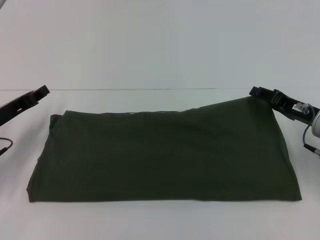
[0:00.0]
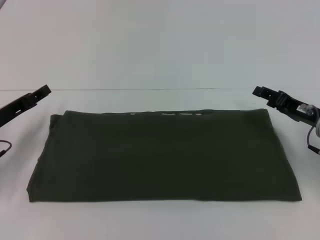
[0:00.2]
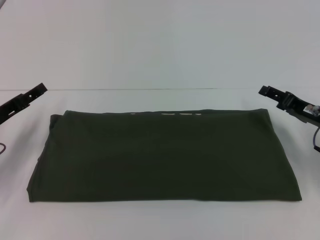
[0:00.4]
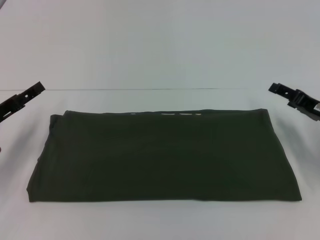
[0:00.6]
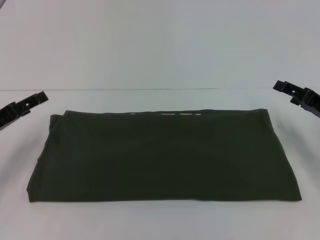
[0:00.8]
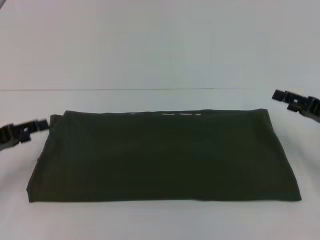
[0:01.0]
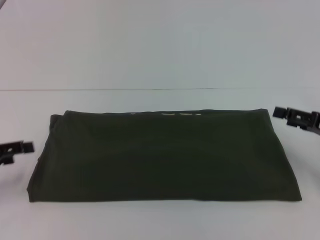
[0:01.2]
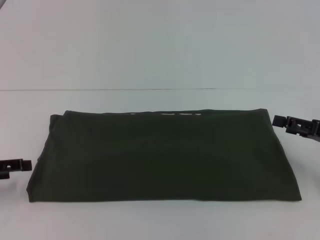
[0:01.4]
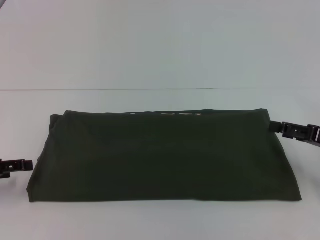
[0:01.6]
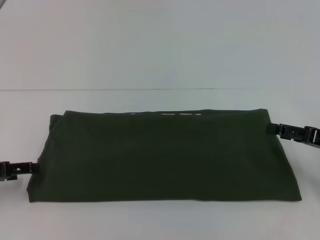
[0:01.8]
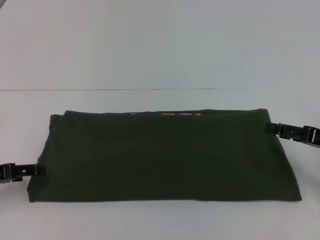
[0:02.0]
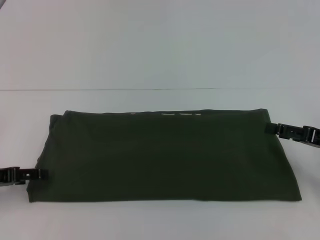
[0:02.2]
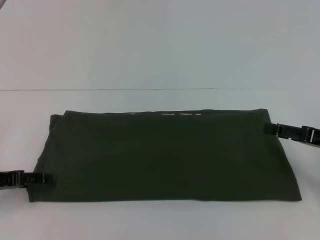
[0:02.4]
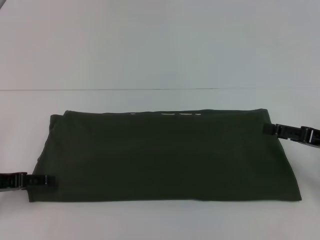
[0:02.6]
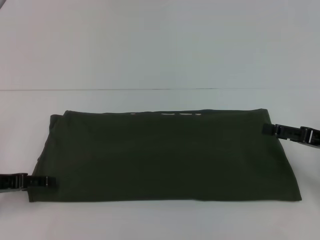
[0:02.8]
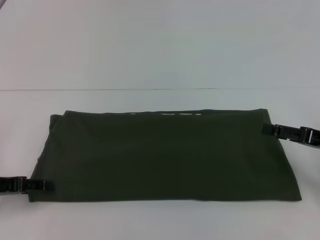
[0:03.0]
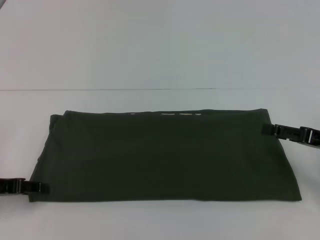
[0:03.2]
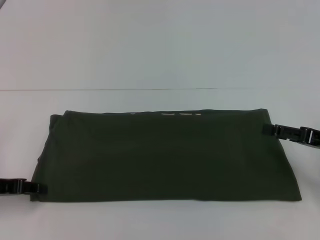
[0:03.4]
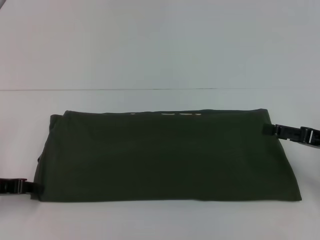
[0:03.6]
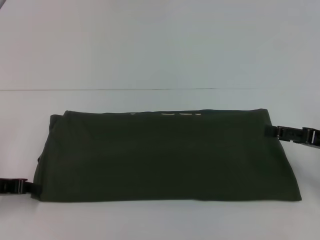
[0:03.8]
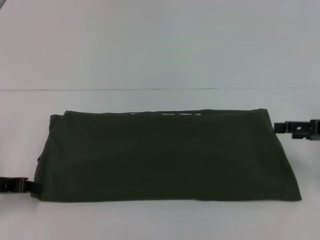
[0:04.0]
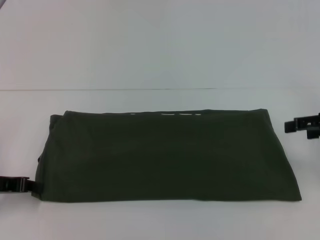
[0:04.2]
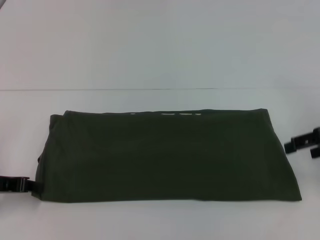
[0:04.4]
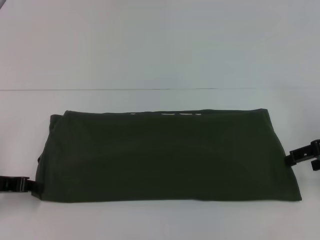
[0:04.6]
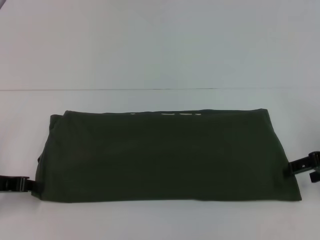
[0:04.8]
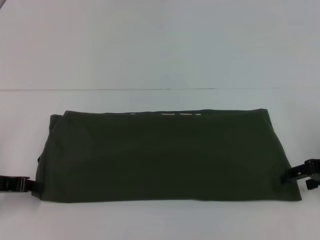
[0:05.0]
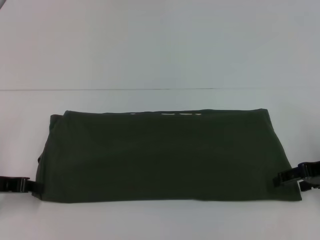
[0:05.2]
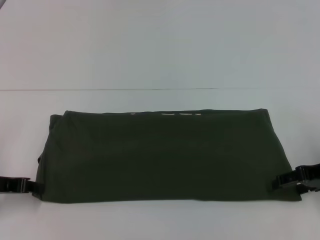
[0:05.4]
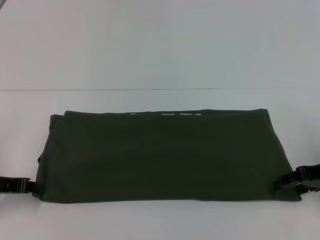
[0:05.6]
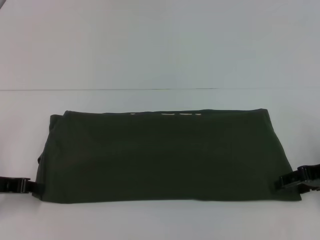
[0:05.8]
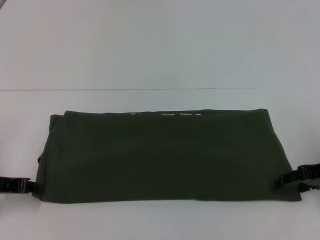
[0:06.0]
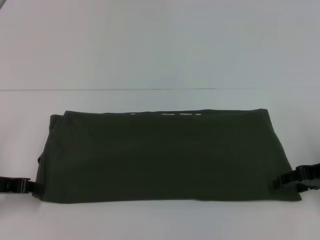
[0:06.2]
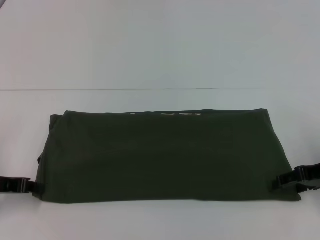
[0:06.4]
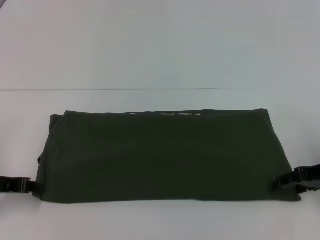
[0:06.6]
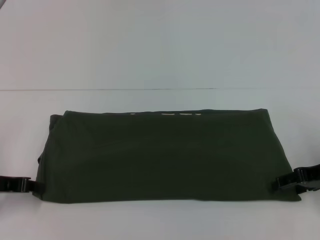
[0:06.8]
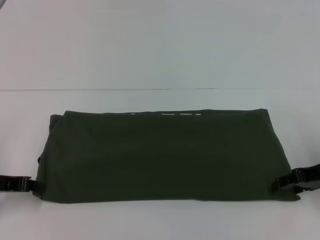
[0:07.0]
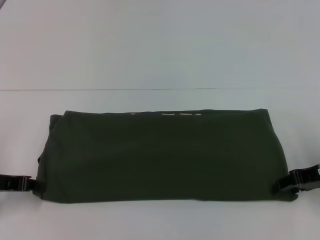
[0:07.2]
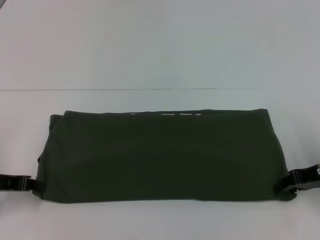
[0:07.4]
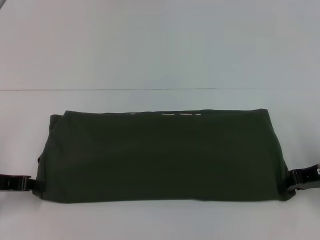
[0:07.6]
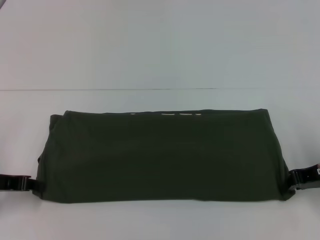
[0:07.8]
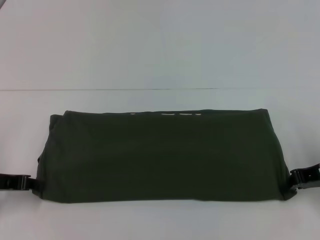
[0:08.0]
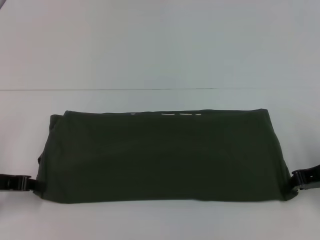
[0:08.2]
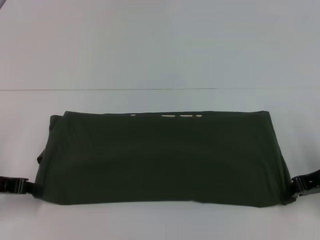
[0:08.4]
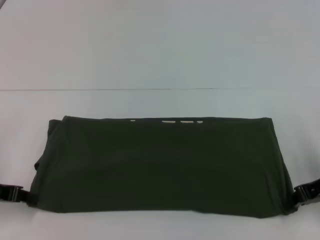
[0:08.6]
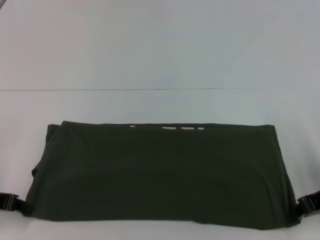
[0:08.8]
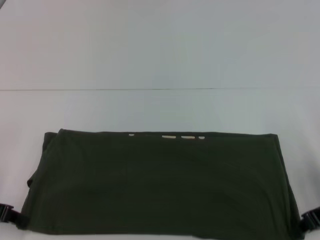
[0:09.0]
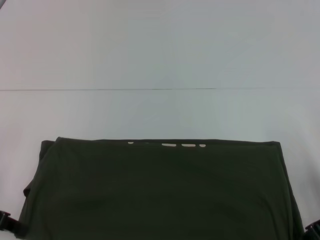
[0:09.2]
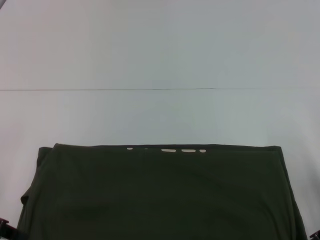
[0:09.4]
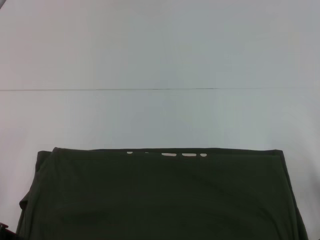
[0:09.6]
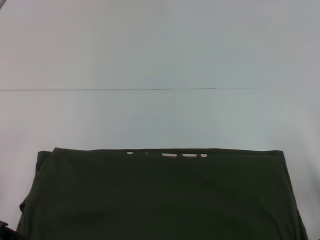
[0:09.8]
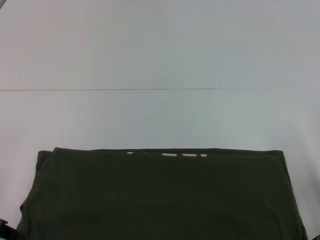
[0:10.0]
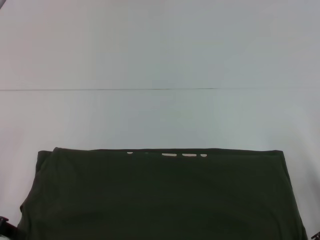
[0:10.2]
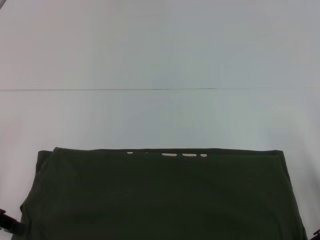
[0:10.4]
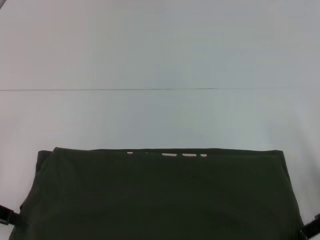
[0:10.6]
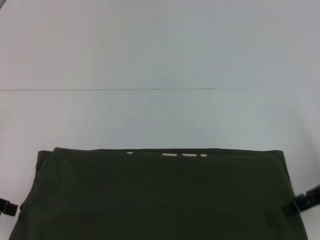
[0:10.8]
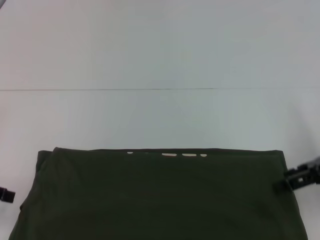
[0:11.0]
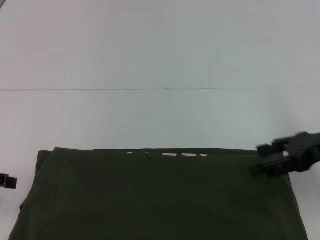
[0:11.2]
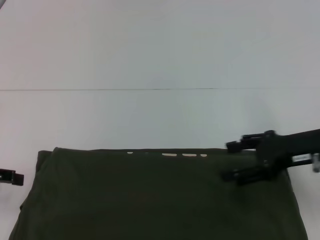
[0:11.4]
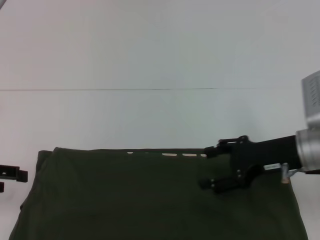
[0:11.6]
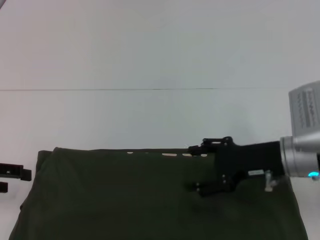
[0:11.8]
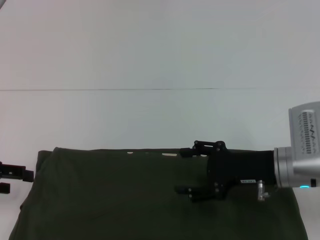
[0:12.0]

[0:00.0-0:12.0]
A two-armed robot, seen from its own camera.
Step, 0:00.0 to 0:00.2: Fold the clothes with your right hand.
Step, 0:00.4 to 0:10.0: Pull the clothes with your left hand.
Step, 0:00.4 to 0:10.0: Pull the clothes with your right hand.
0:00.0 to 0:01.6: The right gripper travels to the right and backward by about 10 cm, and opens its fingers. The left gripper moves backward and to the left, some 10 cm, and opens up.
0:01.6 to 0:03.0: The grippers move only a little.
0:03.0 to 0:04.4: The right gripper heads upward, covering approximately 10 cm.
0:04.4 to 0:06.0: The right gripper travels downward by approximately 5 cm.
0:06.0 to 0:07.6: The right gripper closes.
0:07.6 to 0:09.0: The right gripper closes.
0:09.0 to 0:10.4: There are only small adjustments of the grippers.
0:10.4 to 0:12.0: The right gripper goes about 10 cm to the left, and opens its fingers. Meanwhile the left gripper opens its fingers.

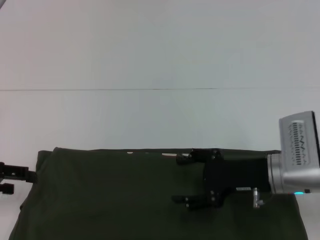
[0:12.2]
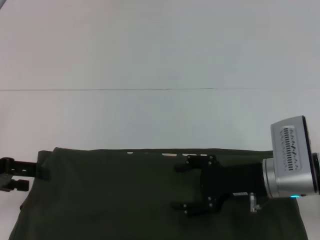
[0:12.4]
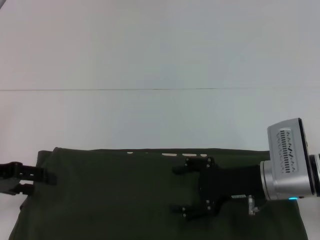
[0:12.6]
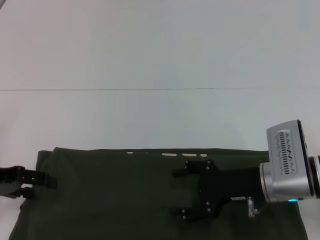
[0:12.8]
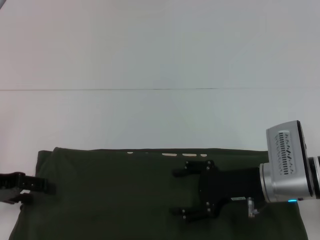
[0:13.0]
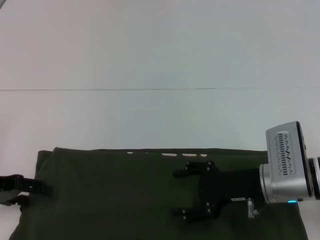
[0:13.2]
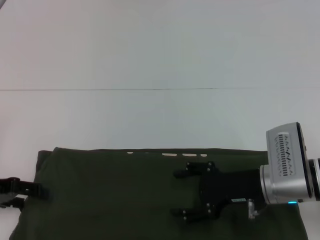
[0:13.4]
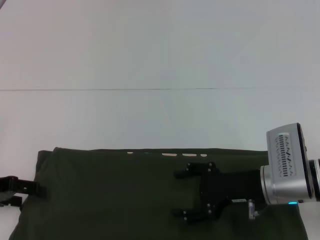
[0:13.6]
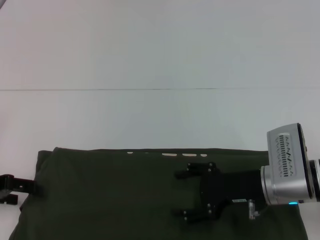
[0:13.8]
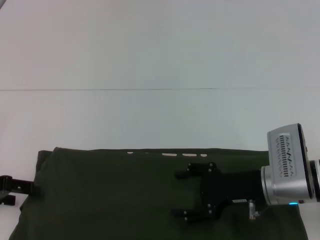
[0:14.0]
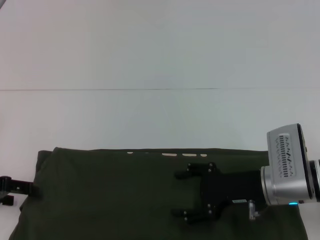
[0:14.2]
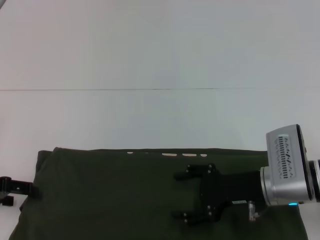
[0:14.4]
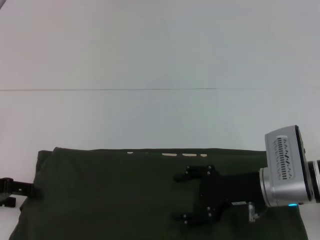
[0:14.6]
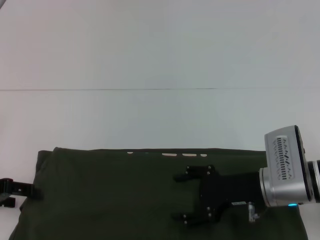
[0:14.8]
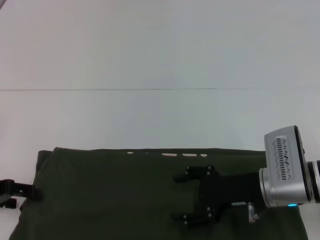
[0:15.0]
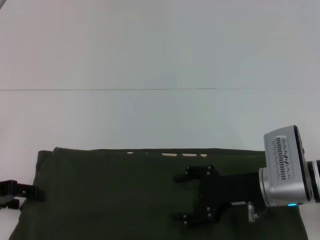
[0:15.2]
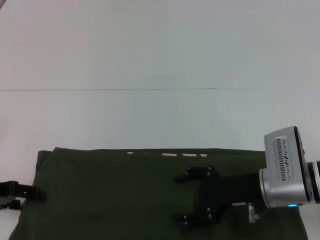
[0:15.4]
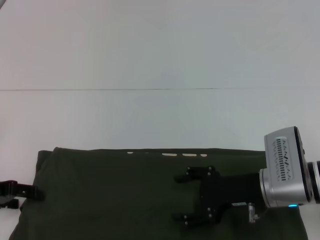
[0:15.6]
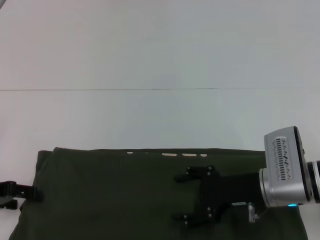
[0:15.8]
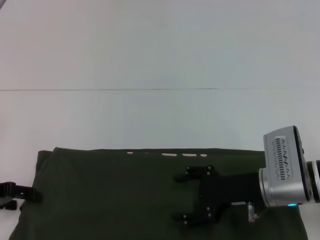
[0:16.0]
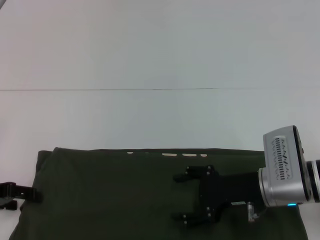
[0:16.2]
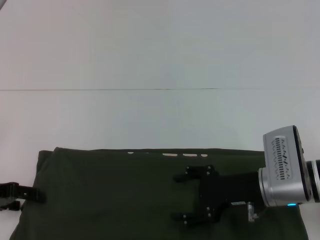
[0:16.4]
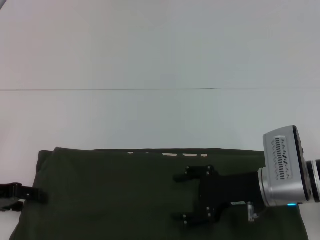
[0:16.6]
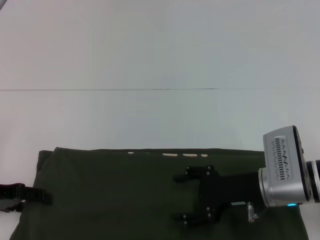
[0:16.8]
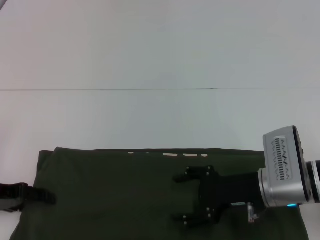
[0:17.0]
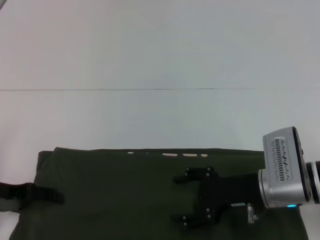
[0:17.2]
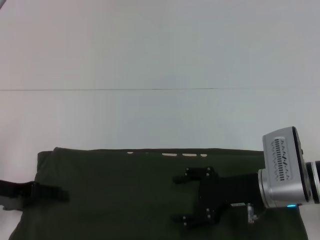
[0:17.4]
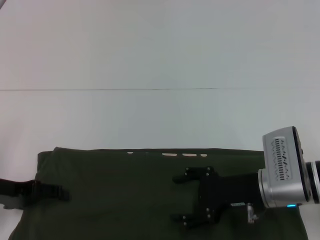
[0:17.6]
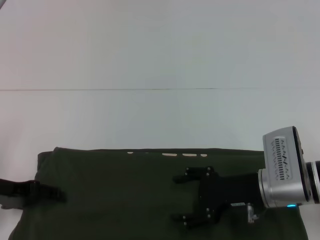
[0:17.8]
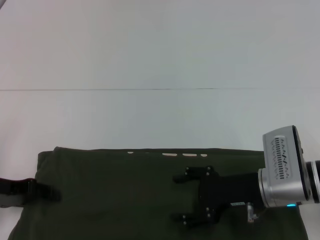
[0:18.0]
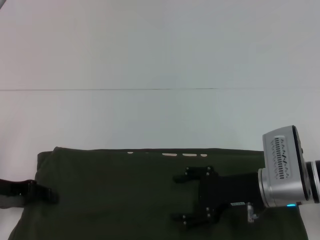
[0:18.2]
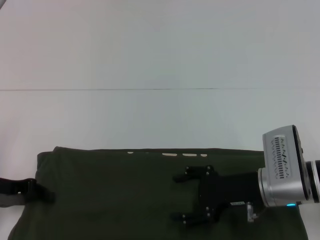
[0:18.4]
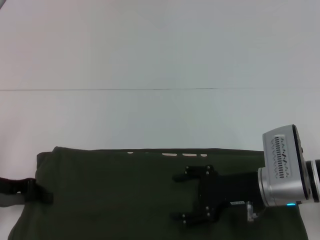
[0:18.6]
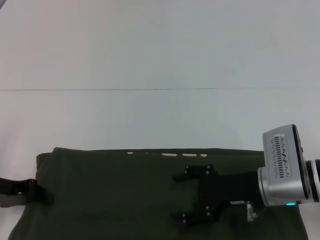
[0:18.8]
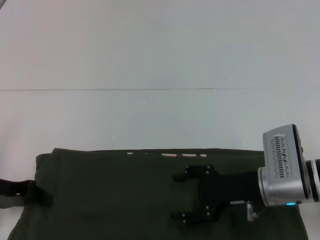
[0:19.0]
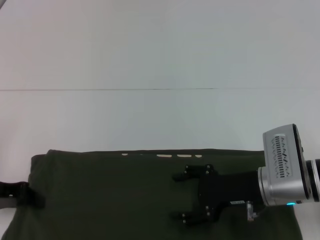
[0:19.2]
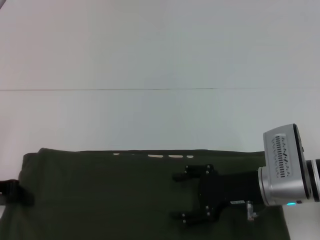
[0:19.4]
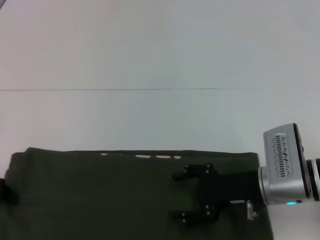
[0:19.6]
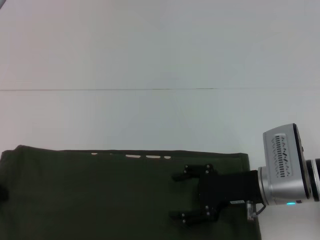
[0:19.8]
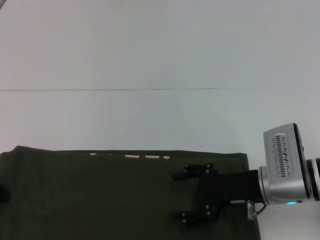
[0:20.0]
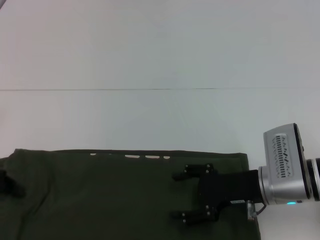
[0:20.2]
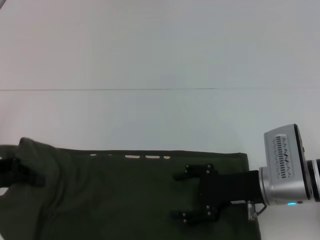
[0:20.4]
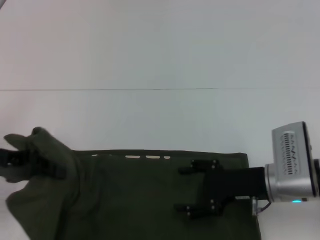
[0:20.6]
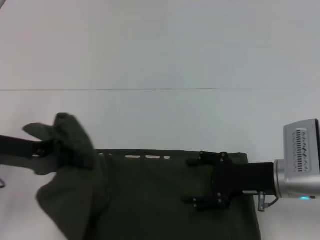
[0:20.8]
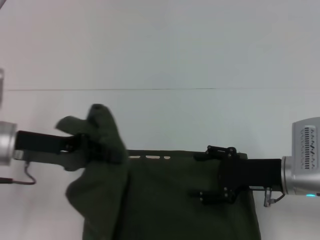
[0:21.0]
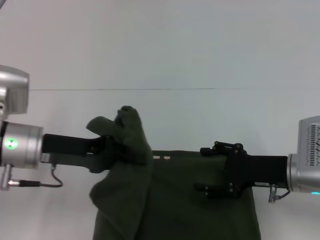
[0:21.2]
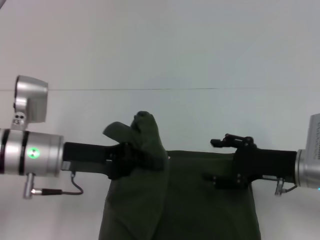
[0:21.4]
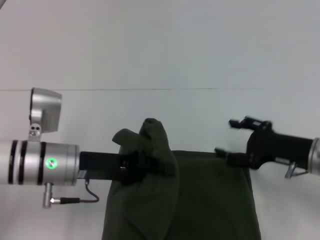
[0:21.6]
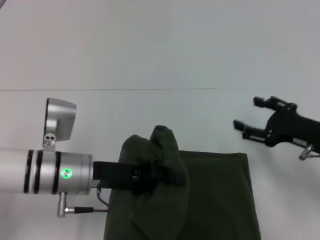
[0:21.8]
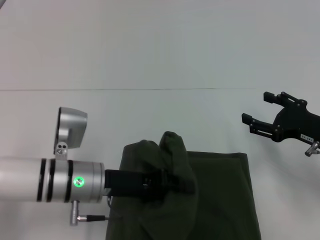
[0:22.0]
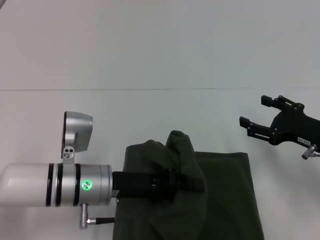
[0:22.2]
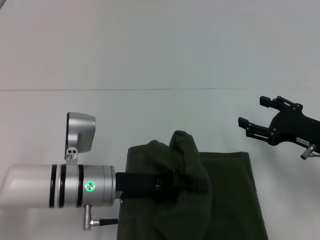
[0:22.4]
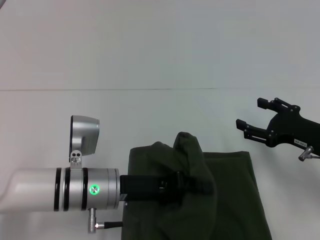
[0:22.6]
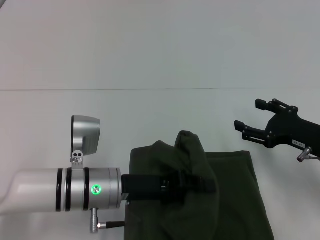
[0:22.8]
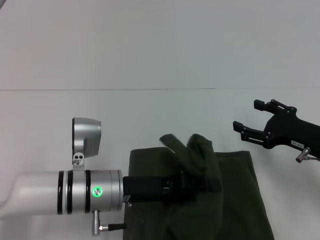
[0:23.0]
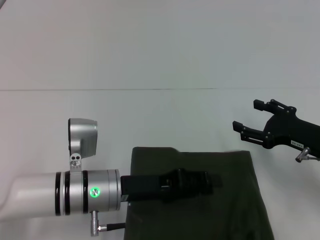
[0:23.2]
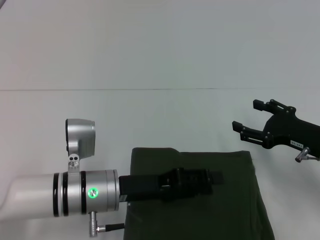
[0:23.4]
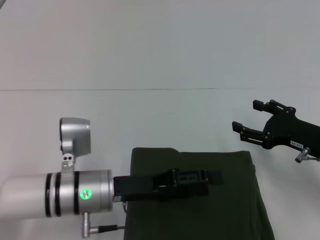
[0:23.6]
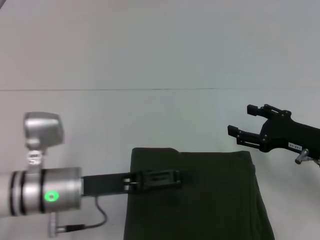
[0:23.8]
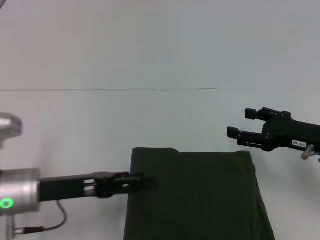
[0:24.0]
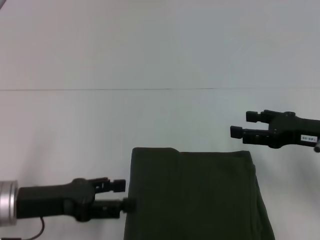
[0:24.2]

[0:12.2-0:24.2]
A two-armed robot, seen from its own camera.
Step, 0:12.2 to 0:23.4: Fold the clothes with your left hand.
0:12.2 to 0:13.8: There are only small adjustments of the grippers.
0:13.8 to 0:15.2: Neither gripper changes place.
0:15.2 to 0:16.6: Neither gripper changes place.
0:16.6 to 0:18.2: The left gripper closes.
0:18.2 to 0:19.8: The left gripper shifts by some 5 cm, and closes.
0:19.8 to 0:21.2: The left gripper is displaced to the right by roughly 15 cm.
0:21.2 to 0:22.6: The left gripper heads to the right and downward, covering approximately 10 cm, while the right gripper shifts about 5 cm to the right.
0:22.6 to 0:24.2: The right gripper heads upward, covering approximately 5 cm. The left gripper travels to the left by about 10 cm, and opens.
